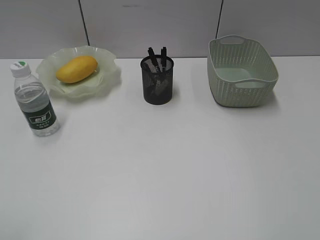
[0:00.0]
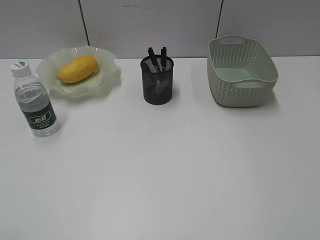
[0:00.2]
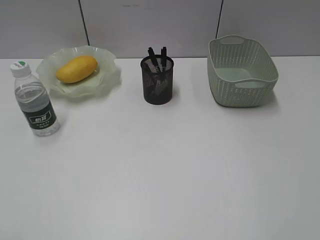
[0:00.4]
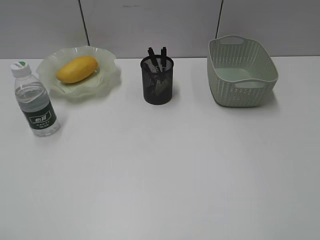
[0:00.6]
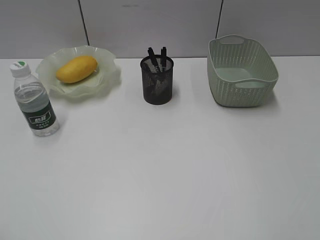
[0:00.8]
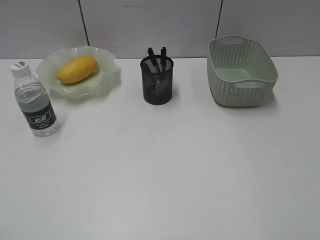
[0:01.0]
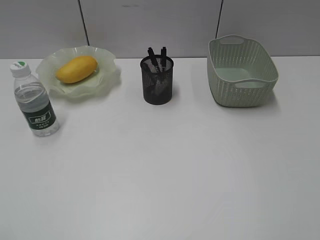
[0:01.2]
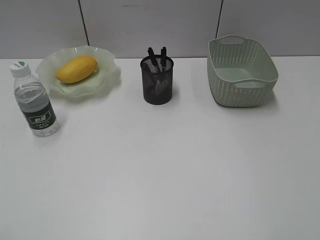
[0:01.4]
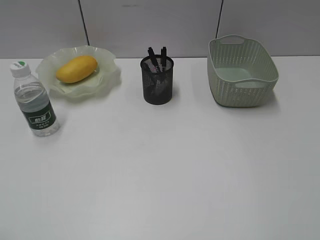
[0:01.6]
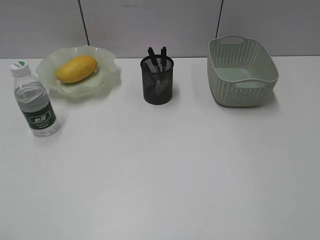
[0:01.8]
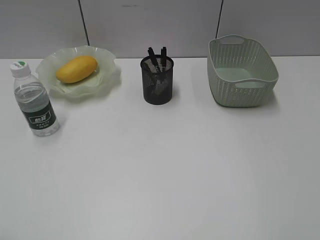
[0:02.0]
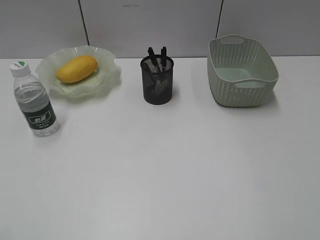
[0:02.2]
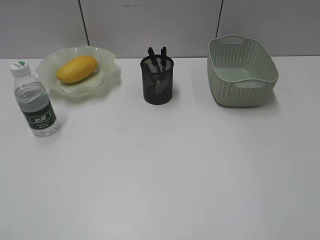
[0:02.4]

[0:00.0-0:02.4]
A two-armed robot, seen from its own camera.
0:01.2 to 0:02.4: The two grippers keep their place.
